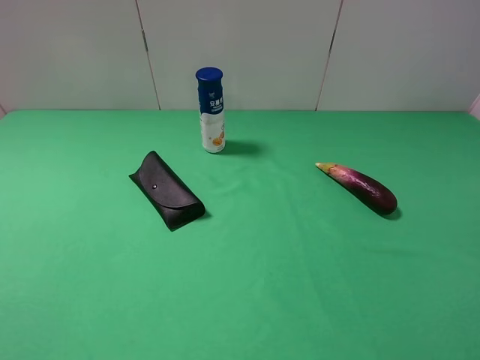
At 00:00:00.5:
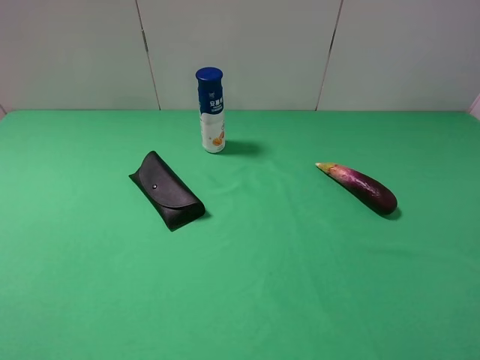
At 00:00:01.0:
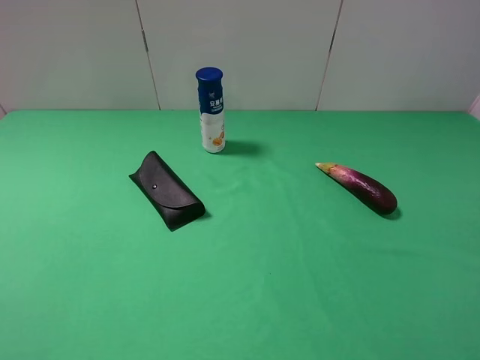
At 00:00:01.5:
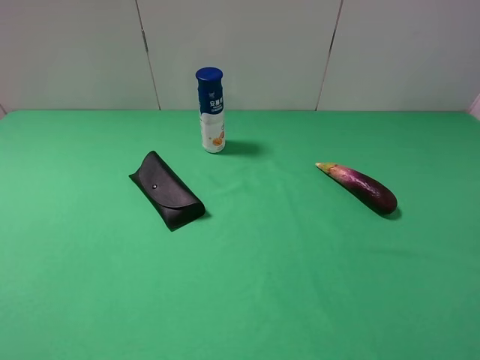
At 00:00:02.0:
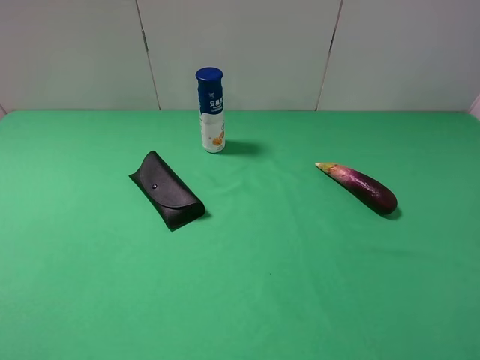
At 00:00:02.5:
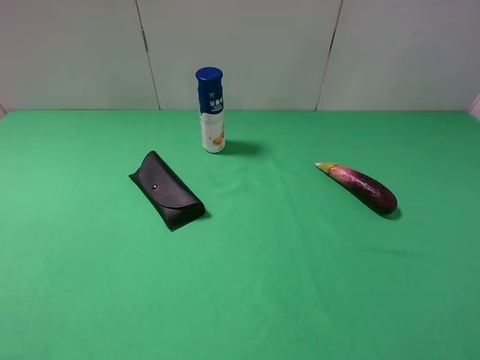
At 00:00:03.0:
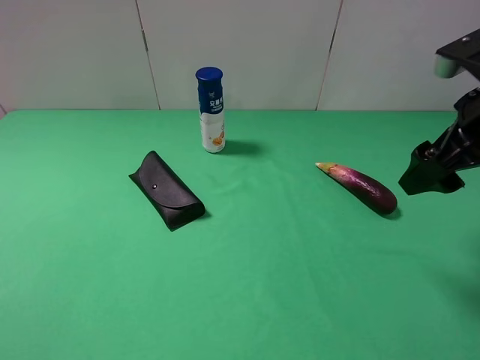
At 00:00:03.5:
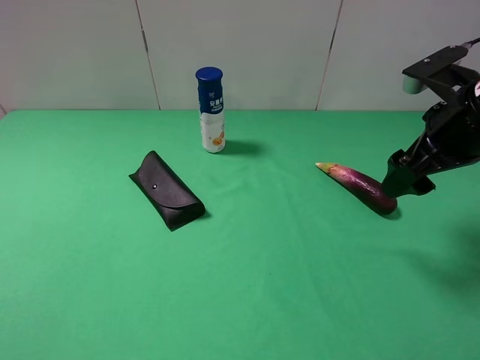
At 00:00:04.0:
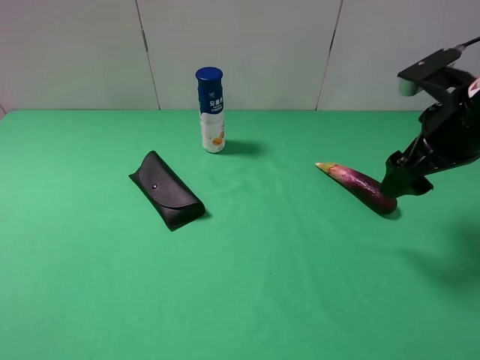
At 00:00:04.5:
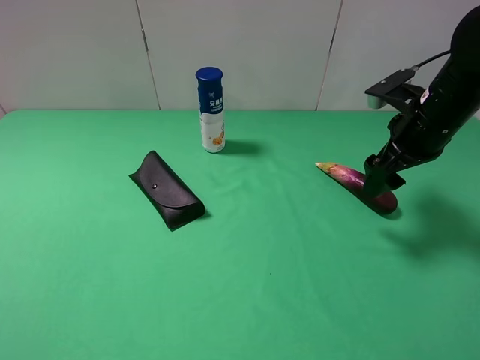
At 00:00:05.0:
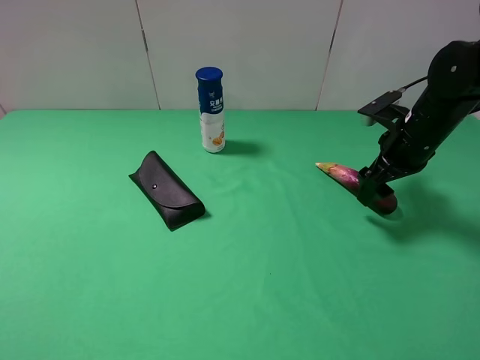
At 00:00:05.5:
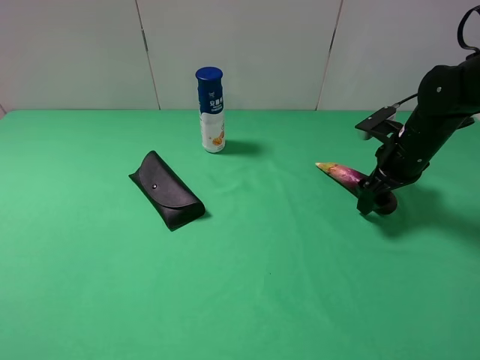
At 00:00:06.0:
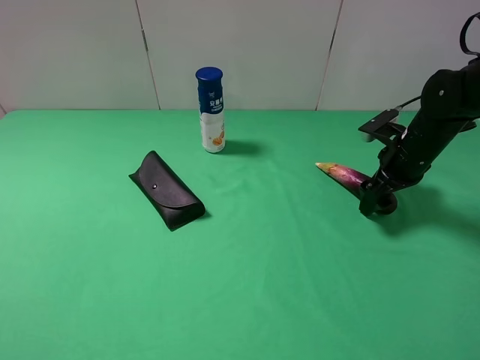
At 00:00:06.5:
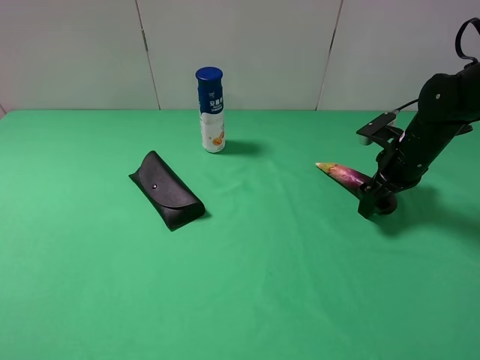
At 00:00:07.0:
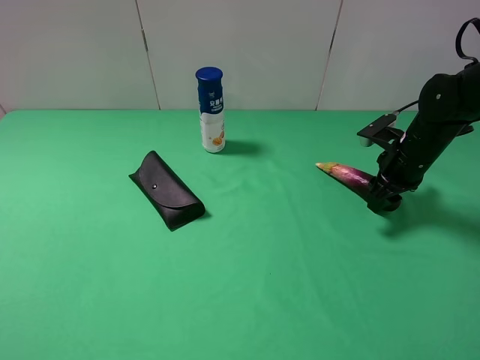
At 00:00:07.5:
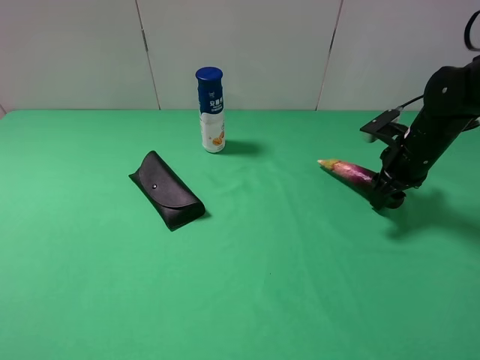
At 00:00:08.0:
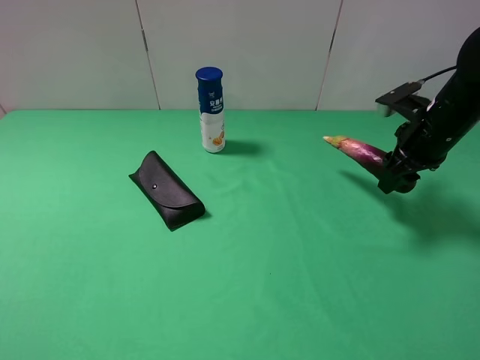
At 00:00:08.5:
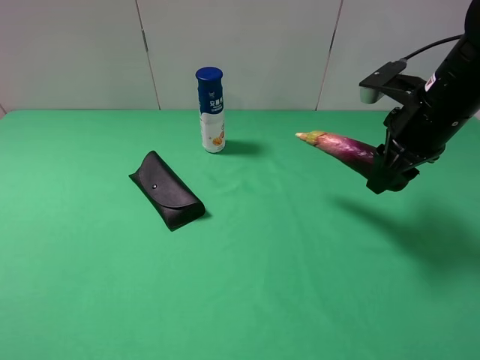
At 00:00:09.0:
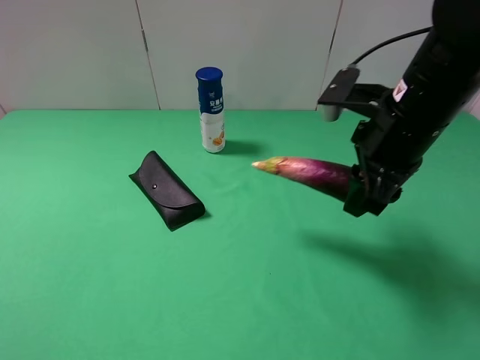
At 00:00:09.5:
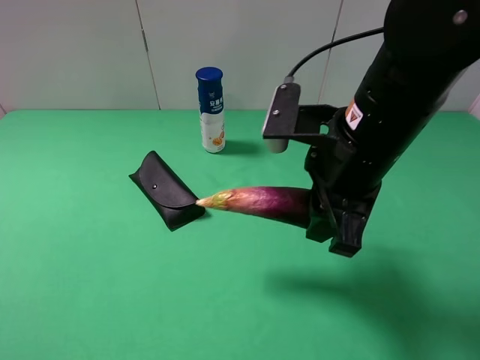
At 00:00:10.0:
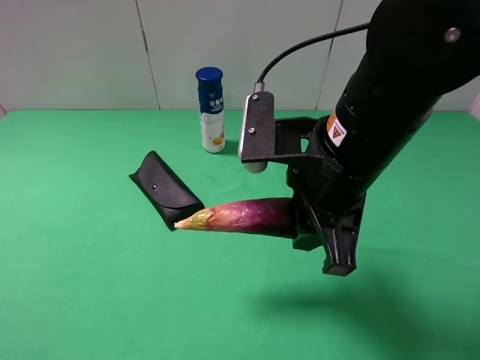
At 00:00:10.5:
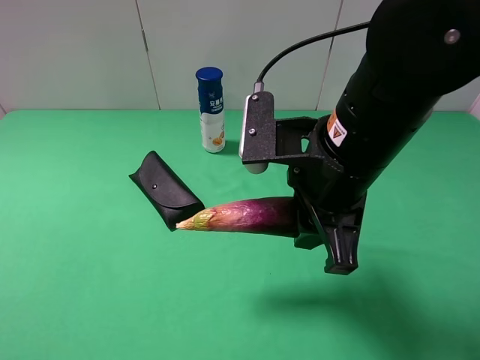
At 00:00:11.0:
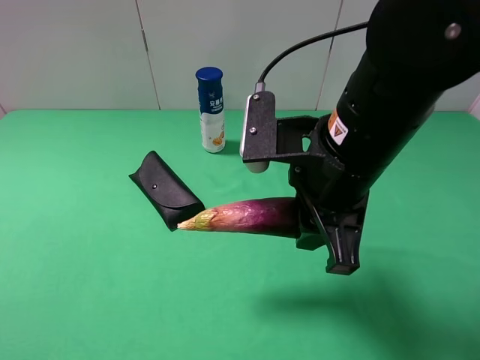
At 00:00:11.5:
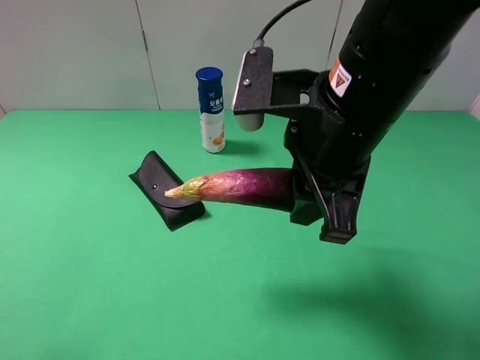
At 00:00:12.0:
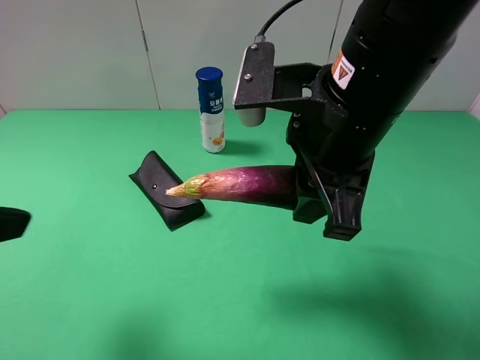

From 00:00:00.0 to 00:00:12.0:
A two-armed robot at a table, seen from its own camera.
Task of the whole recording: use the right gripper to pick up the item and transfer it from the right gripper to the left gripper.
From 00:00:02.0 to 00:00:04.0: The right gripper is displaced forward by roughly 25 cm.
From 00:00:04.0 to 00:00:06.0: The right gripper shifts roughly 15 cm downward and forward.
From 00:00:06.0 to 00:00:08.0: The right gripper heads upward, covering approximately 5 cm, and closes.
From 00:00:08.0 to 00:00:10.0: The right gripper is displaced to the left and backward by roughly 25 cm.
From 00:00:10.0 to 00:00:12.0: The left gripper travels forward and to the right by about 10 cm.

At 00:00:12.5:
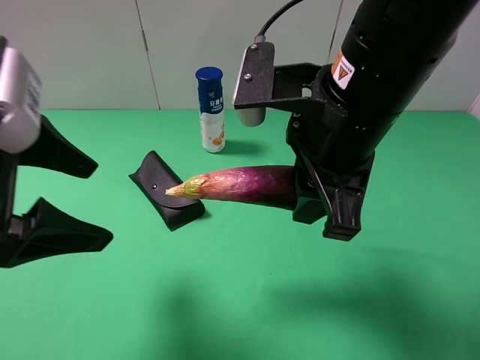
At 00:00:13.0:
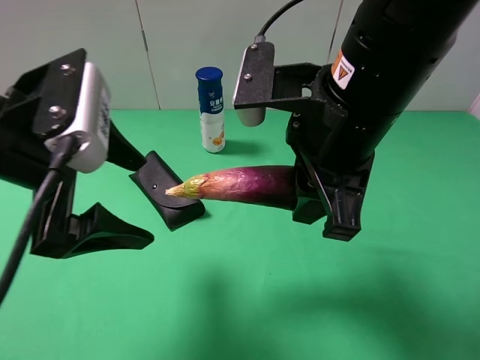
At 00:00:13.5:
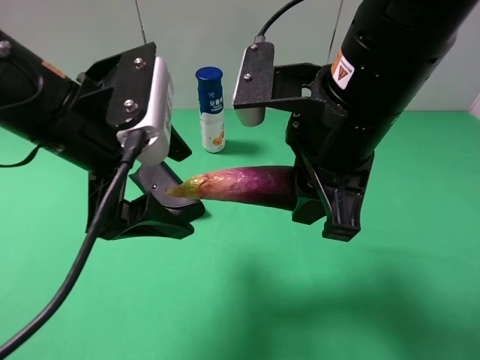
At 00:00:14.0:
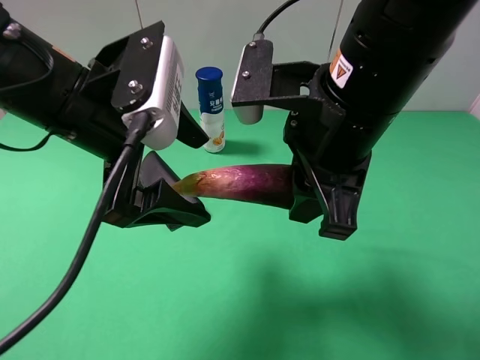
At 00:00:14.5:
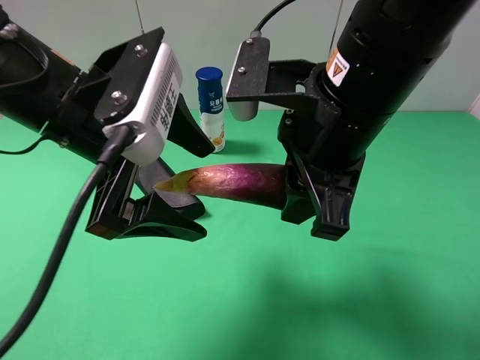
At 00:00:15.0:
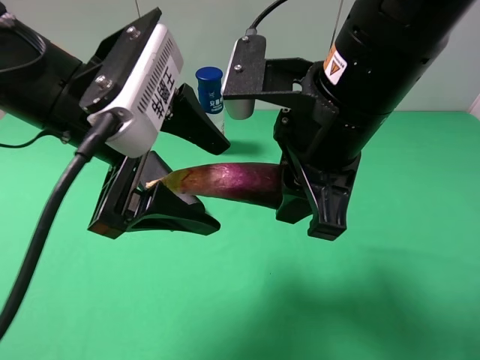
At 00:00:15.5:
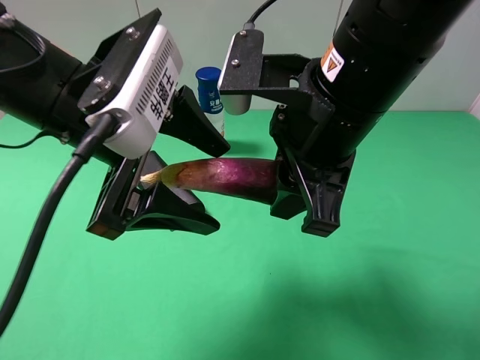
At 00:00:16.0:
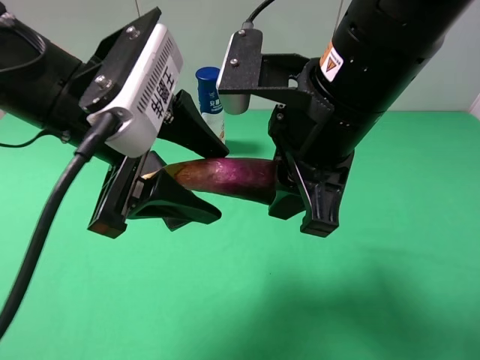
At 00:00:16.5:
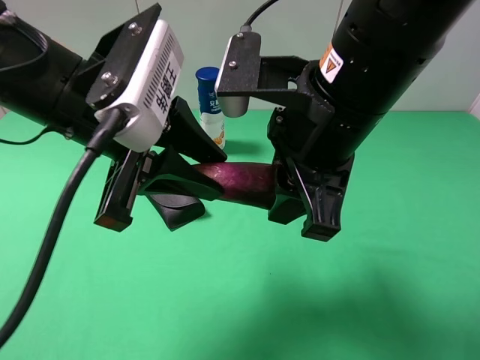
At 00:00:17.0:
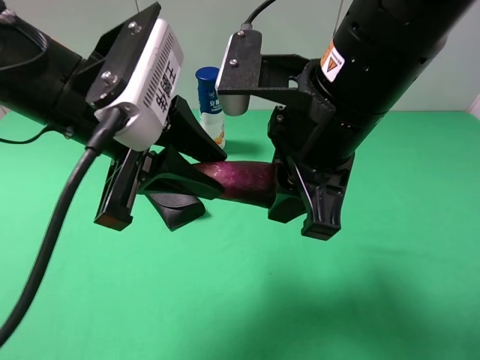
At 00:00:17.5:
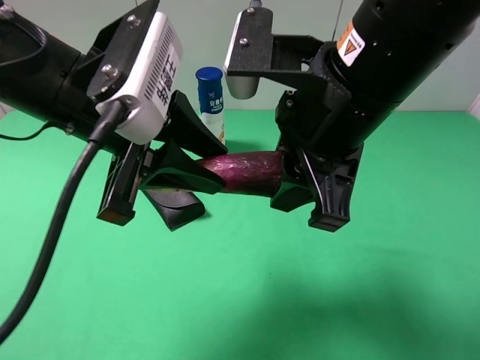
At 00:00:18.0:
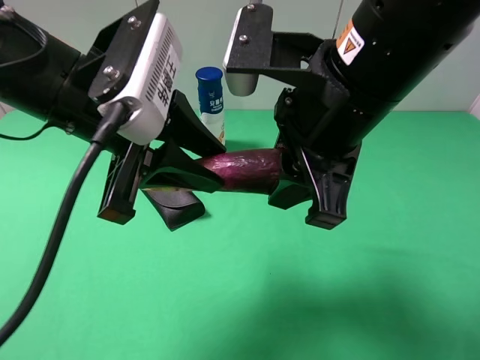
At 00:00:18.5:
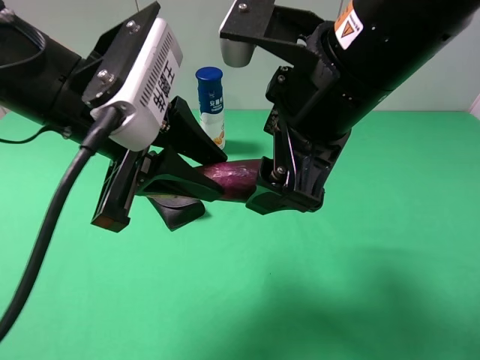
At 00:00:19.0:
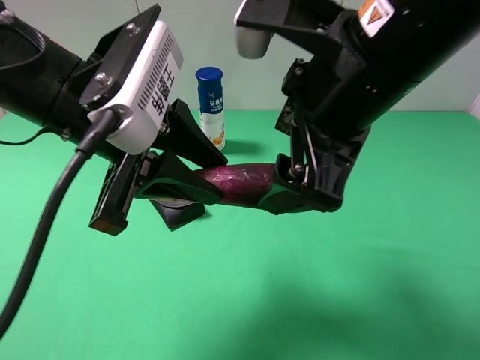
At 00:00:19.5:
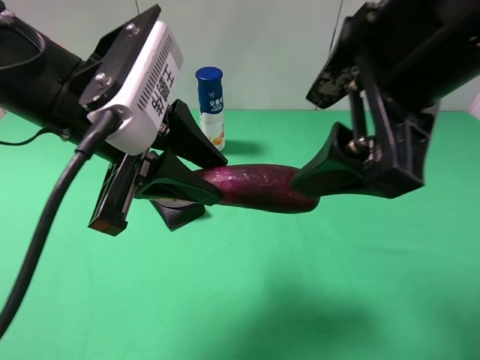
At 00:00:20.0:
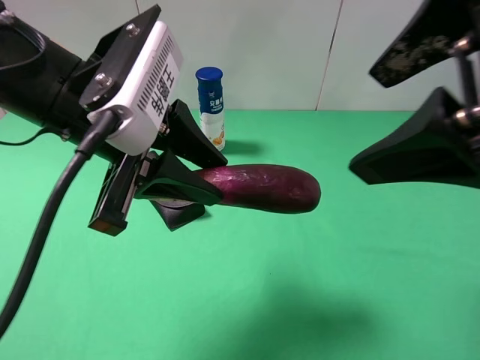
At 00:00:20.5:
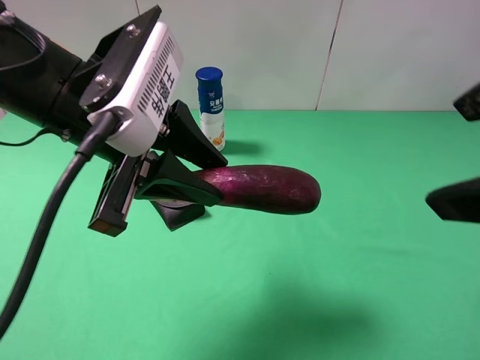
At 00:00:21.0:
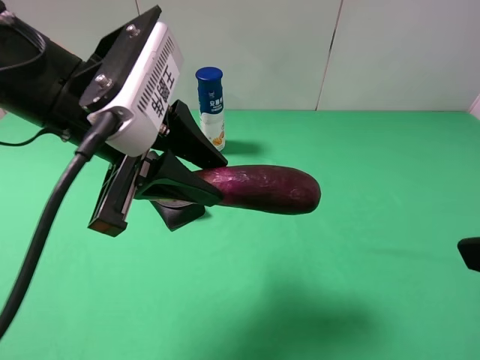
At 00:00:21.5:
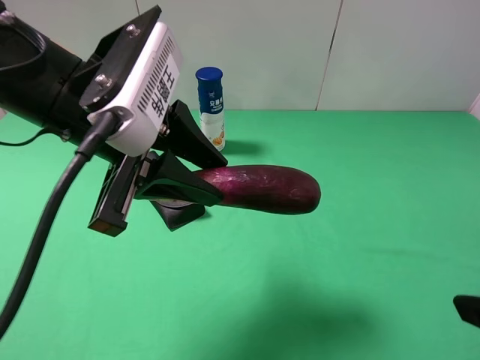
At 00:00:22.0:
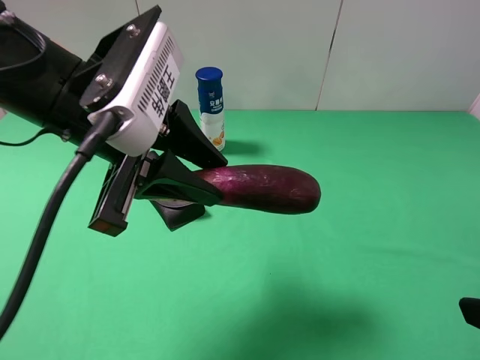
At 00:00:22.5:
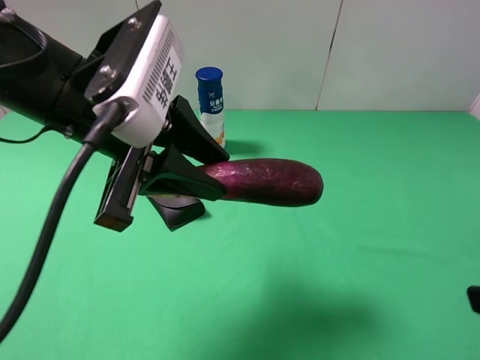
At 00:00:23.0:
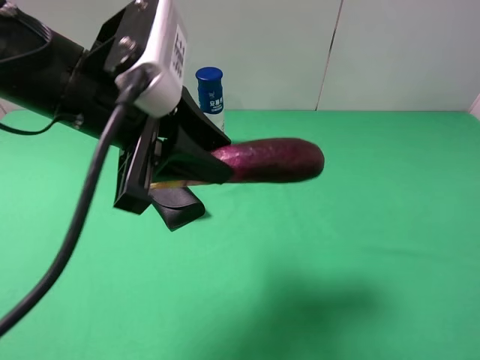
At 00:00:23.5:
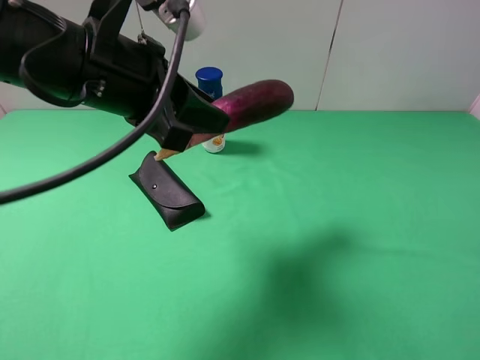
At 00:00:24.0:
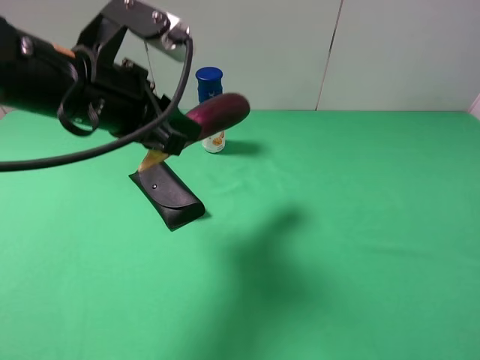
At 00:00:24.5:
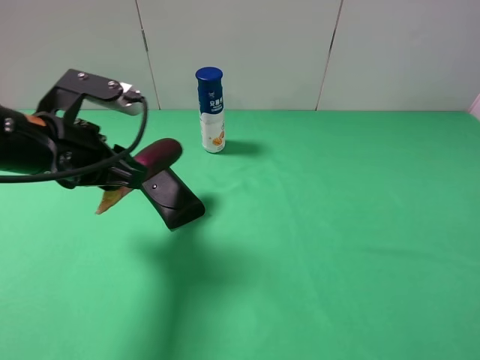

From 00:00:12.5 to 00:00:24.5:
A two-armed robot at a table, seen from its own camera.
Task of the whole recording: use the right gripper to pick up the item and transfer it from the right gripper to the left gripper.
Step, from 00:00:12.5 to 00:00:18.0: Pass the eggplant to the left gripper.
From 00:00:12.5 to 00:00:14.5: The left gripper travels to the right by about 10 cm.
From 00:00:14.5 to 00:00:16.5: The left gripper closes up.
From 00:00:16.5 to 00:00:18.5: The right gripper opens up.
From 00:00:18.5 to 00:00:20.5: The right gripper travels to the right, backward and upward by approximately 15 cm.
From 00:00:20.5 to 00:00:22.5: The right gripper goes about 15 cm downward, to the right and backward.
From 00:00:22.5 to 00:00:24.5: The left gripper goes roughly 10 cm to the left and downward.

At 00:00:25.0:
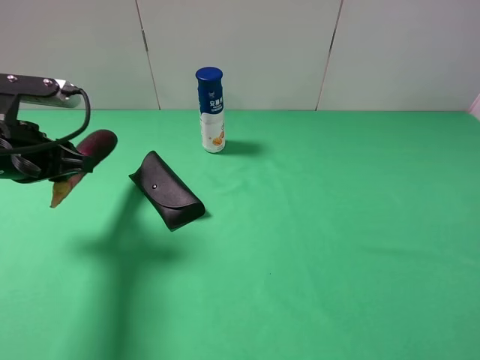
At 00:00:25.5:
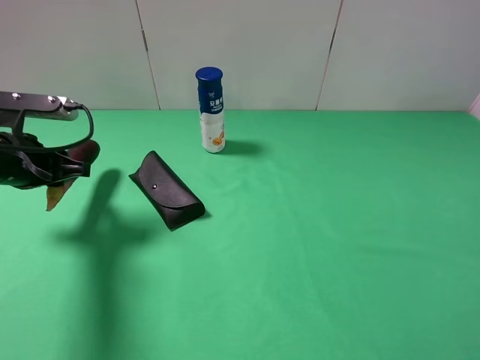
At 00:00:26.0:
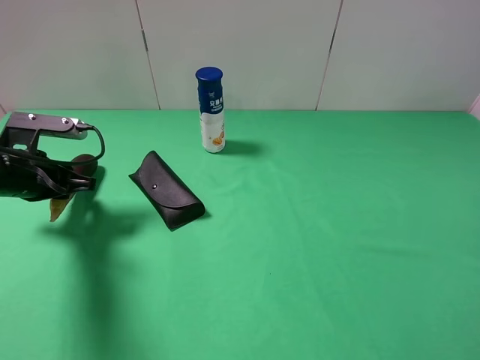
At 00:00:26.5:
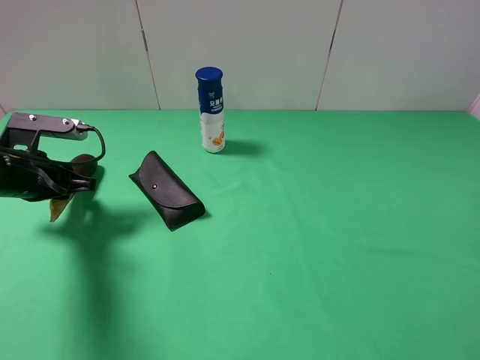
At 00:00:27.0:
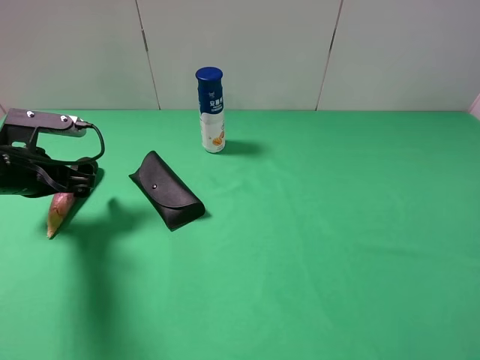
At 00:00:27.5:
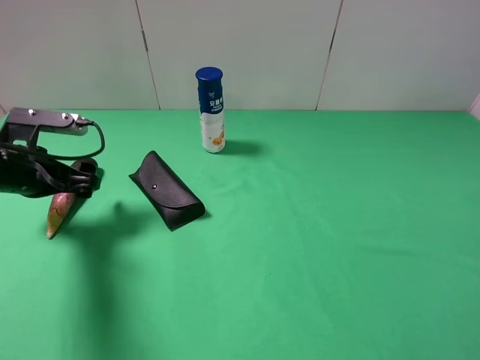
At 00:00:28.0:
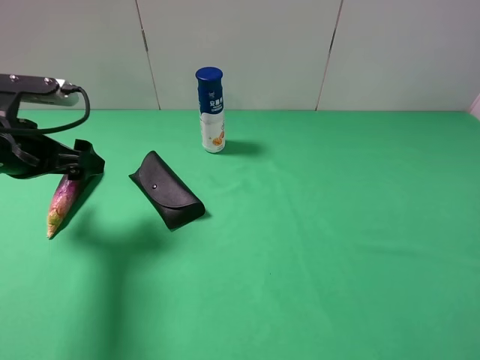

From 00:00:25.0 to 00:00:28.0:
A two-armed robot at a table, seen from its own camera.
Task of the whole recording: use the right gripper to pick up the item and transfer it from the right gripper to the left gripper.
From 00:00:25.0 to 00:00:26.5: The left gripper travels downward by about 5 cm.
From 00:00:26.5 to 00:00:28.0: The left gripper is displaced upward by some 5 cm, and opens up.
